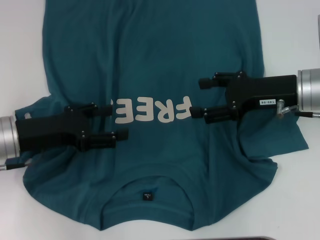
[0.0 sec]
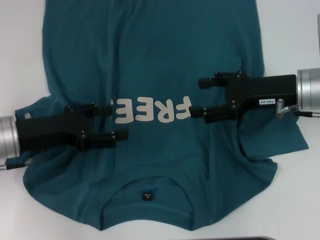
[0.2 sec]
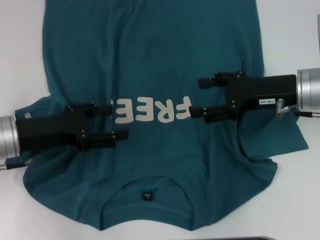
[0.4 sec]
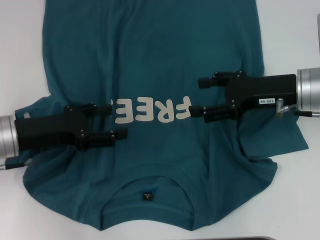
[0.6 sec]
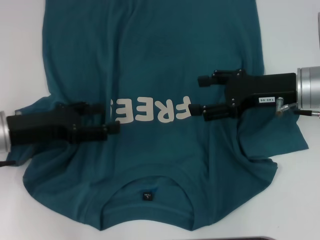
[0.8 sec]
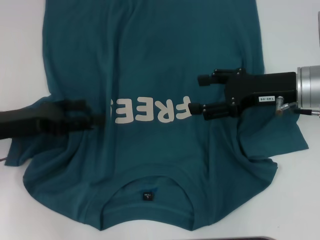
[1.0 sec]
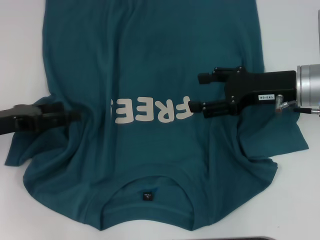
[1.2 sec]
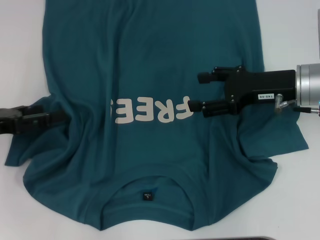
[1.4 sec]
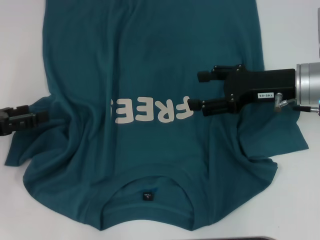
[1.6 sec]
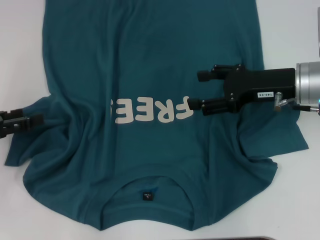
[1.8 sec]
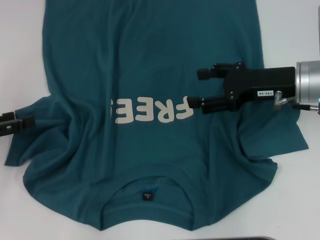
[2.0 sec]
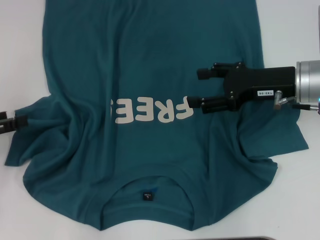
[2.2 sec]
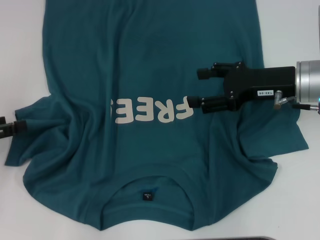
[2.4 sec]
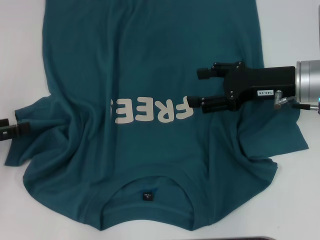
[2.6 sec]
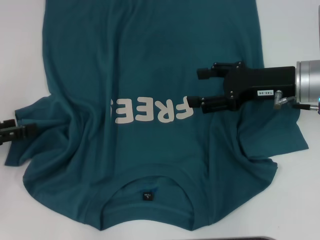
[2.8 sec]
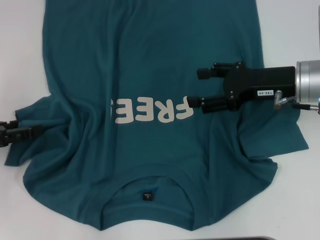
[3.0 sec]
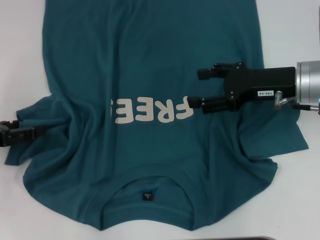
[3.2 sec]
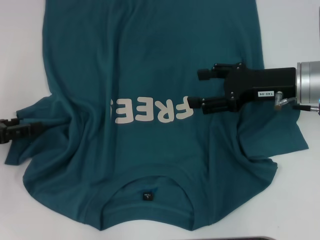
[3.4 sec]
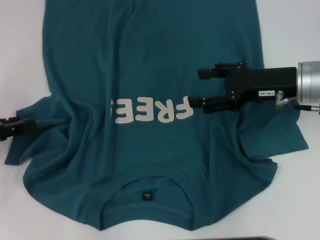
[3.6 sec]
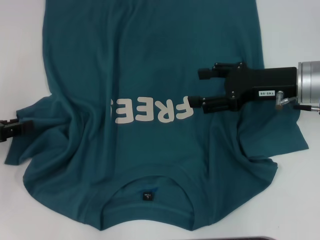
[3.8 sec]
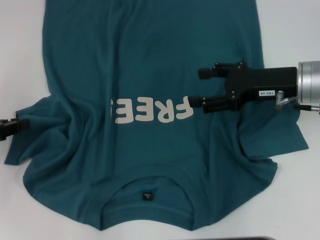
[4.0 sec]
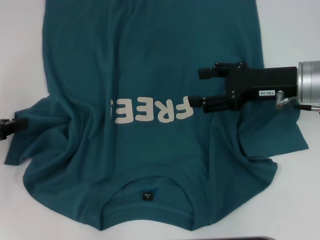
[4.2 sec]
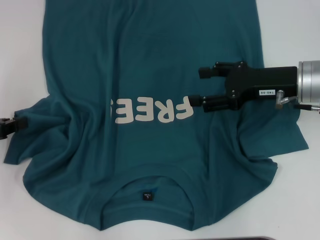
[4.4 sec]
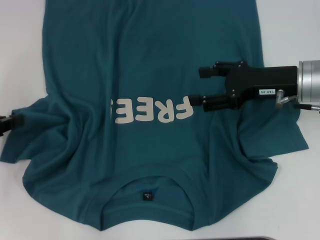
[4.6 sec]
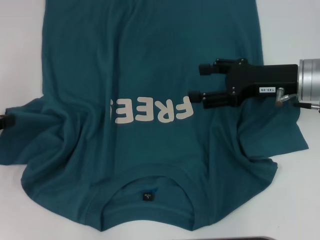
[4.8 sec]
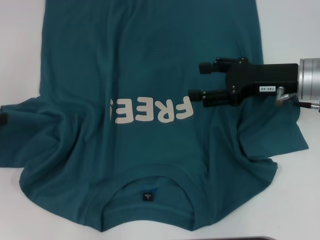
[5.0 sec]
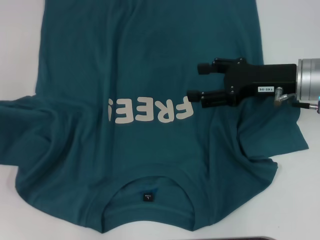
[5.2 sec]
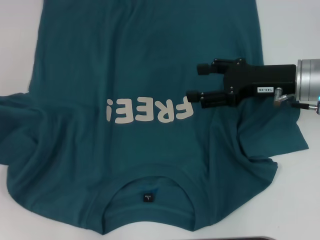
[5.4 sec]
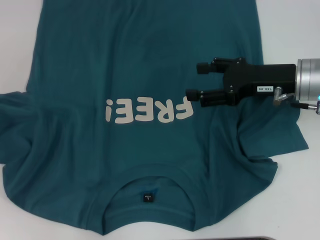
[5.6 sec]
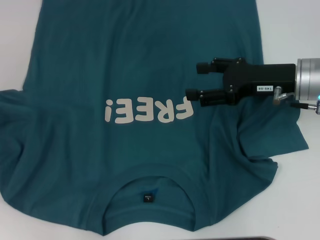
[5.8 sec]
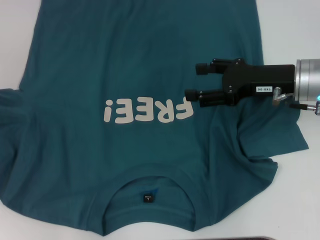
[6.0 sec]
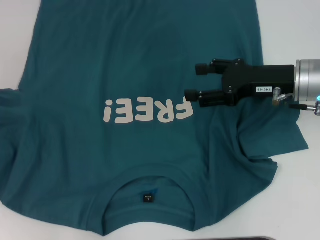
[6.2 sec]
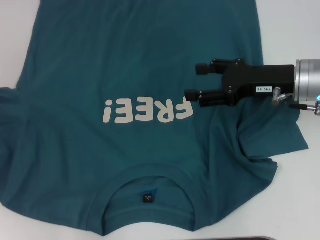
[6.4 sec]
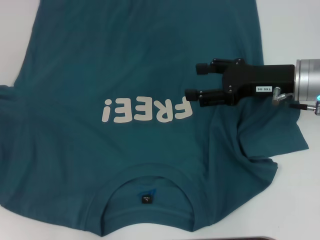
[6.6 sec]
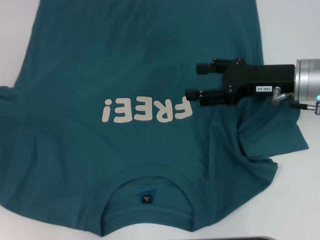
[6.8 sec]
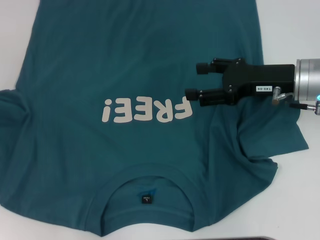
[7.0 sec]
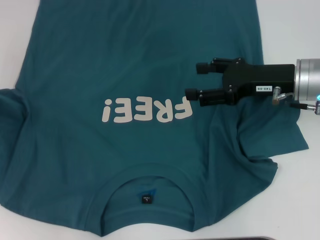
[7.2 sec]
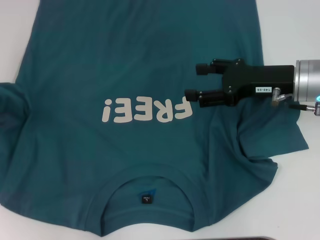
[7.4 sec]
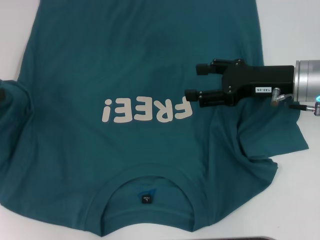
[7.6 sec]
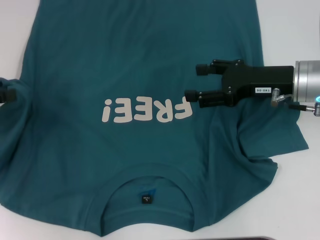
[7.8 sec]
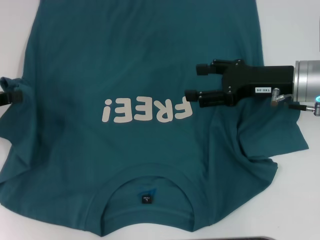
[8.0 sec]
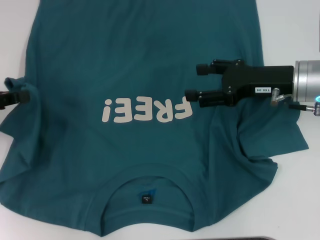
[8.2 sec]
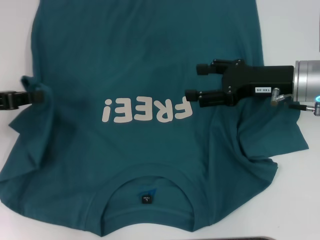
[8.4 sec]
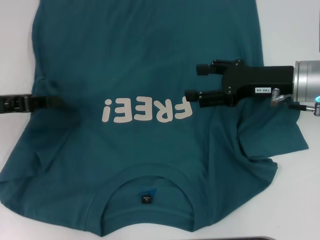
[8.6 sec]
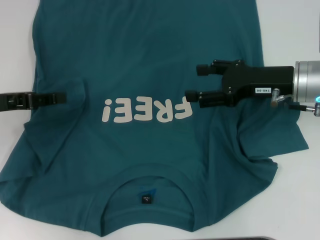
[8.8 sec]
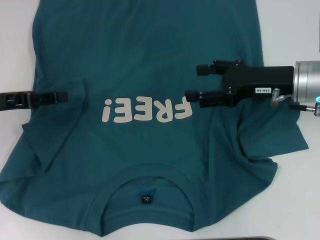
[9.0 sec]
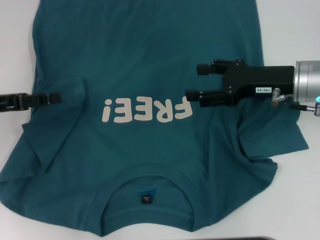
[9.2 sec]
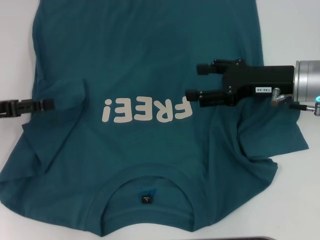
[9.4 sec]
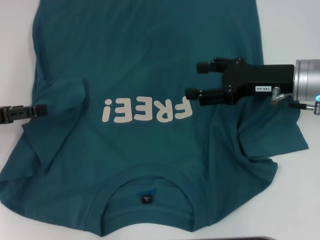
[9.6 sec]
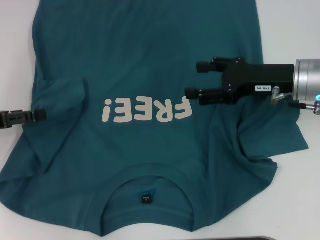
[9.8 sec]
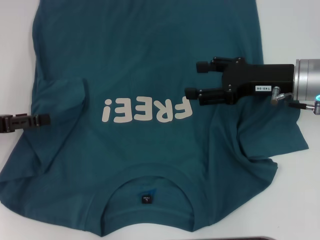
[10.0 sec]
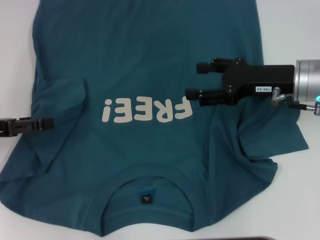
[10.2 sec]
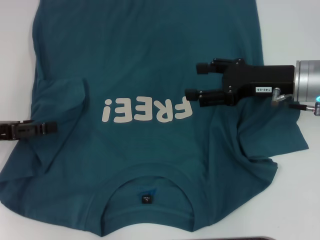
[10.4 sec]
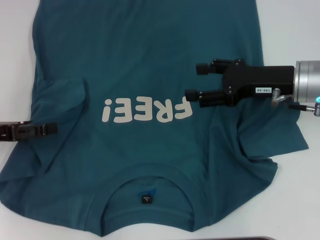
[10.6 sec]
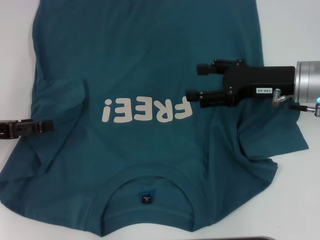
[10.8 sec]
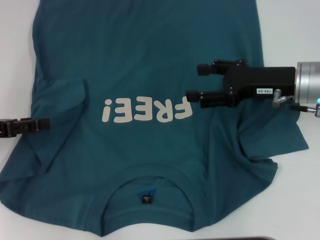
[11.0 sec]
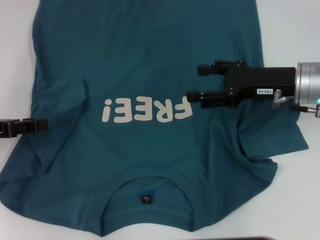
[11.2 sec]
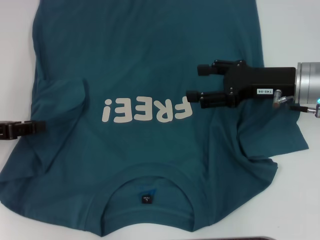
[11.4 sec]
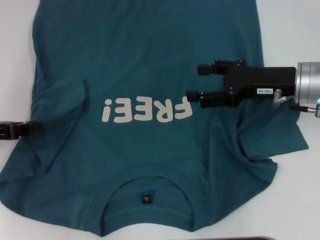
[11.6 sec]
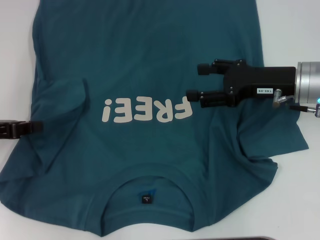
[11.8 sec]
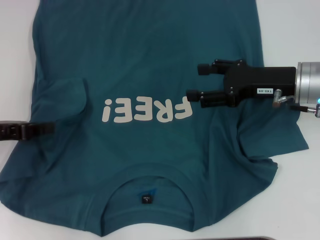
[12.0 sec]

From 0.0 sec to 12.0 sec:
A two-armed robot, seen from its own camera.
Step, from 0.0 sec to 9.0 sec: Fold the bottom left sleeve with your left hand.
From 0.0 sec to 1.6 sec: The left gripper goes about 10 cm to the left.
From 1.6 sec to 3.0 sec: The grippers make only small movements.
From 3.0 sec to 4.4 sec: The left gripper closes its fingers.
From 4.4 sec to 6.0 sec: The left gripper goes some 5 cm to the left.
From 6.0 sec to 7.6 sec: The grippers make only small movements.
From 7.6 sec to 9.0 sec: The left gripper shifts about 5 cm to the right.
From 9.0 sec to 10.4 sec: The left gripper opens up.

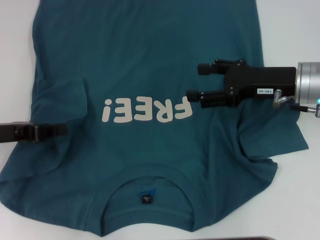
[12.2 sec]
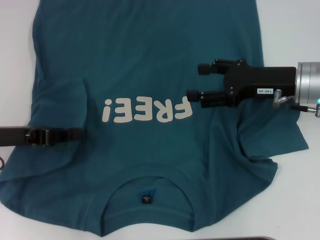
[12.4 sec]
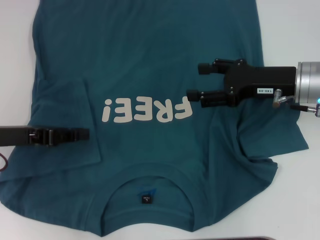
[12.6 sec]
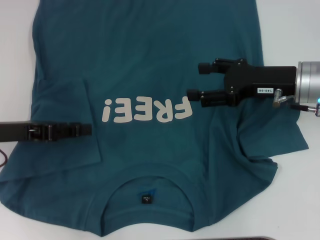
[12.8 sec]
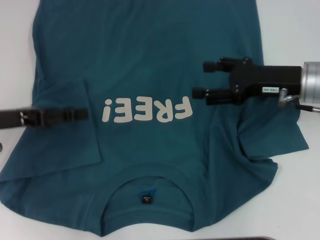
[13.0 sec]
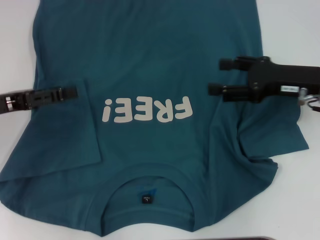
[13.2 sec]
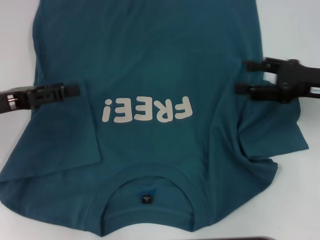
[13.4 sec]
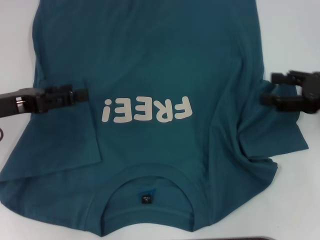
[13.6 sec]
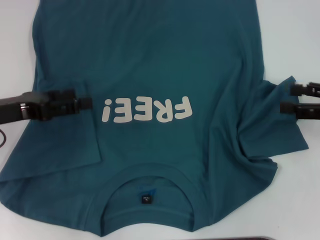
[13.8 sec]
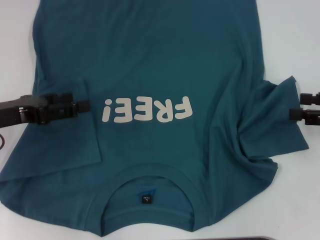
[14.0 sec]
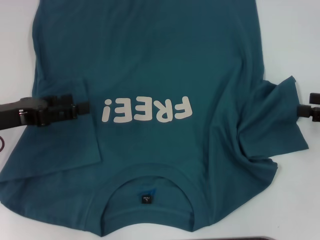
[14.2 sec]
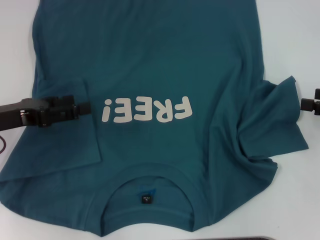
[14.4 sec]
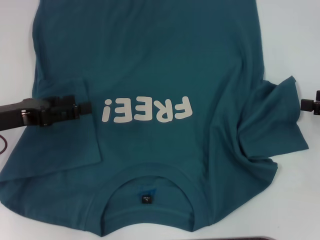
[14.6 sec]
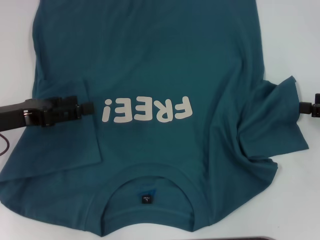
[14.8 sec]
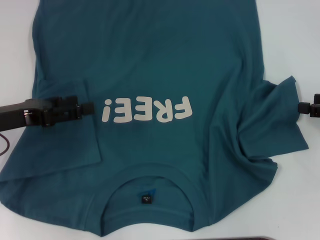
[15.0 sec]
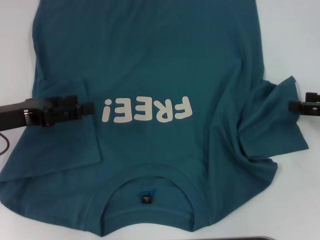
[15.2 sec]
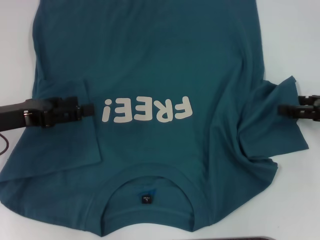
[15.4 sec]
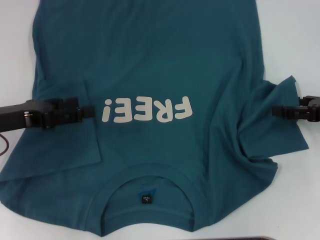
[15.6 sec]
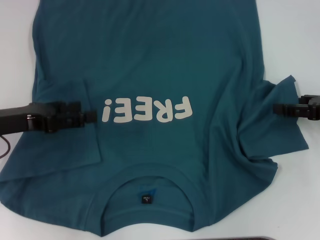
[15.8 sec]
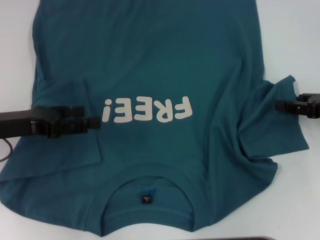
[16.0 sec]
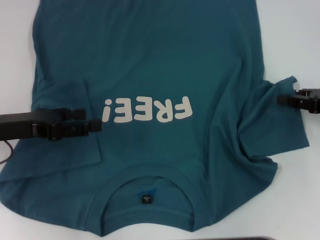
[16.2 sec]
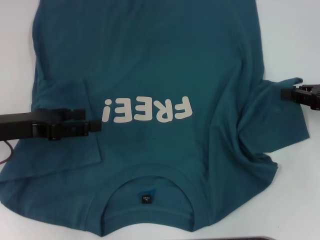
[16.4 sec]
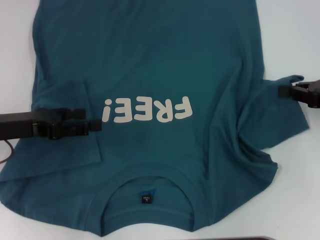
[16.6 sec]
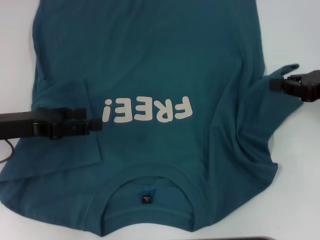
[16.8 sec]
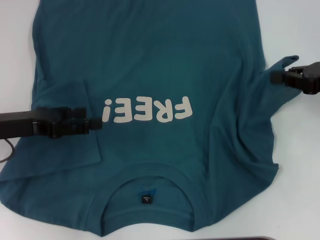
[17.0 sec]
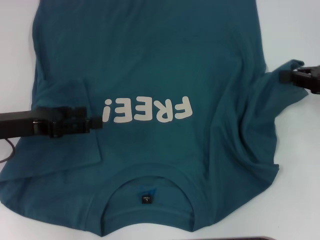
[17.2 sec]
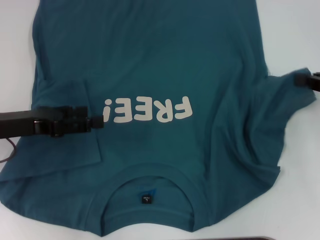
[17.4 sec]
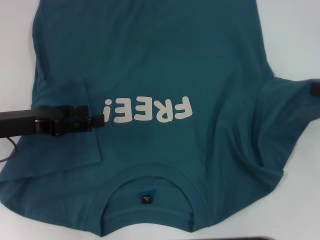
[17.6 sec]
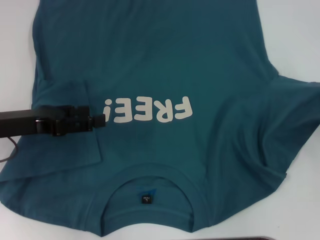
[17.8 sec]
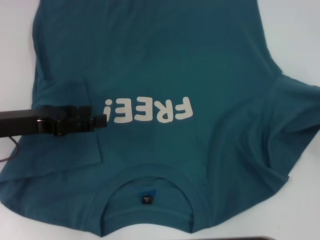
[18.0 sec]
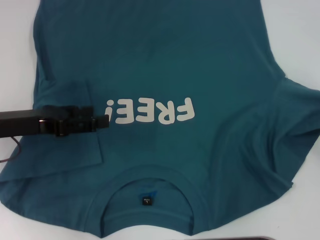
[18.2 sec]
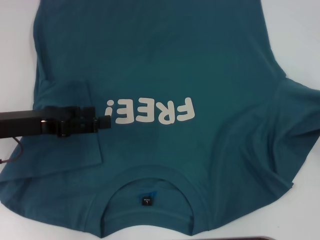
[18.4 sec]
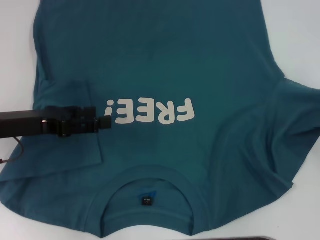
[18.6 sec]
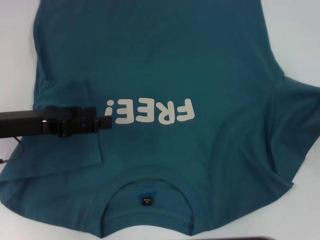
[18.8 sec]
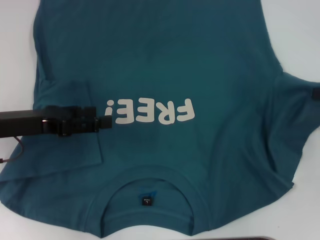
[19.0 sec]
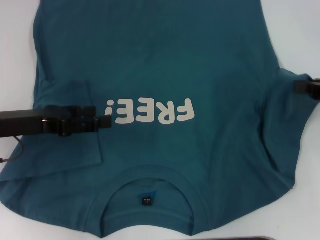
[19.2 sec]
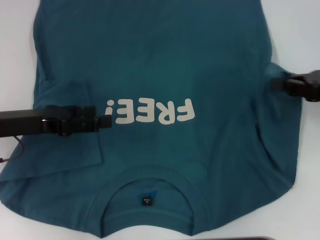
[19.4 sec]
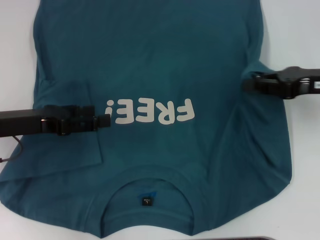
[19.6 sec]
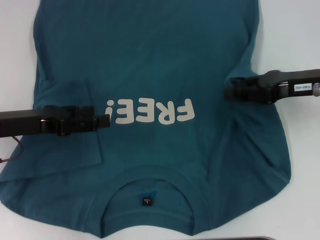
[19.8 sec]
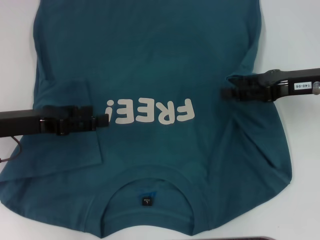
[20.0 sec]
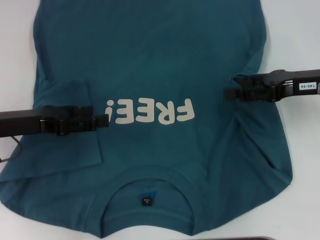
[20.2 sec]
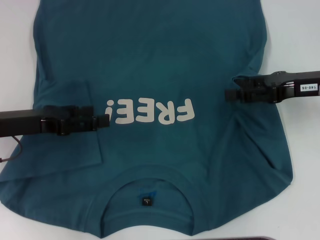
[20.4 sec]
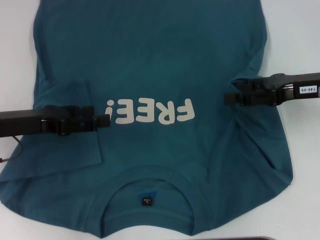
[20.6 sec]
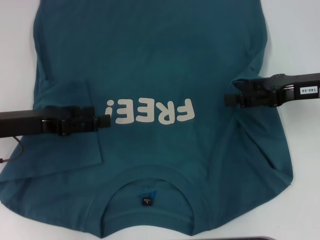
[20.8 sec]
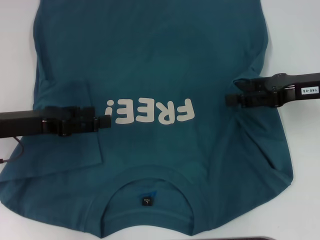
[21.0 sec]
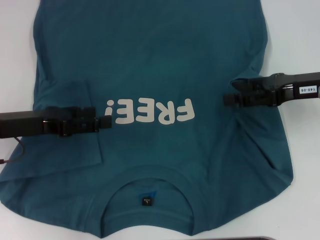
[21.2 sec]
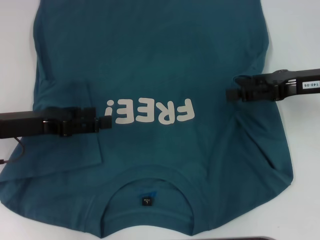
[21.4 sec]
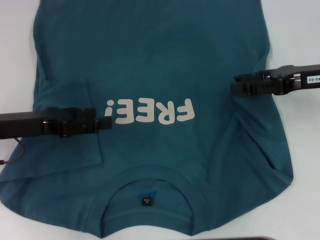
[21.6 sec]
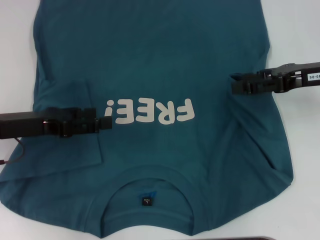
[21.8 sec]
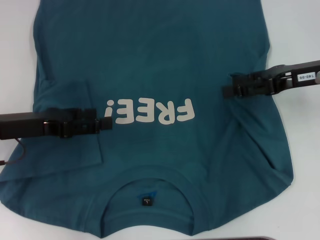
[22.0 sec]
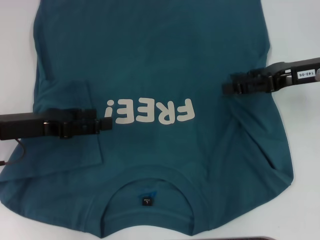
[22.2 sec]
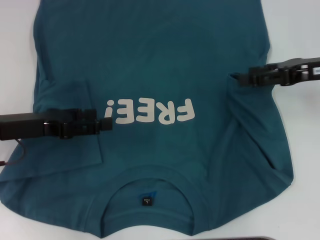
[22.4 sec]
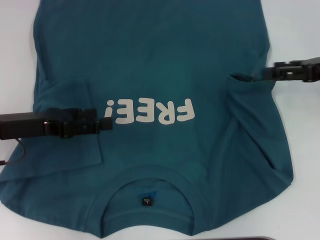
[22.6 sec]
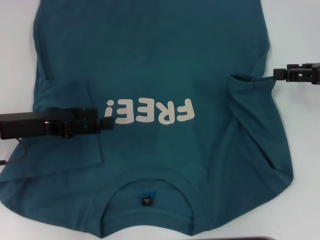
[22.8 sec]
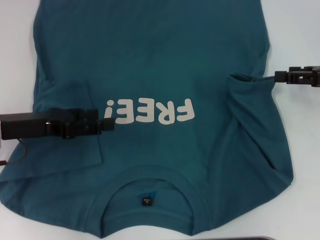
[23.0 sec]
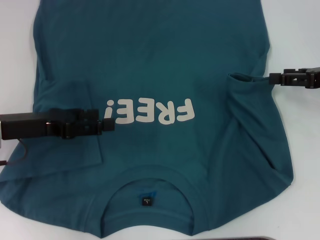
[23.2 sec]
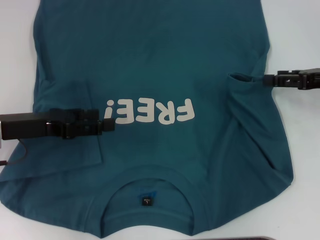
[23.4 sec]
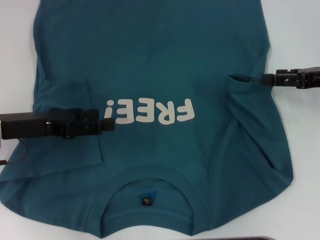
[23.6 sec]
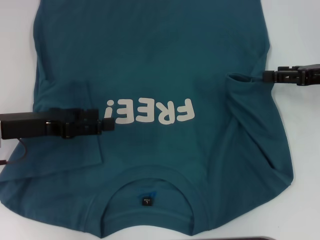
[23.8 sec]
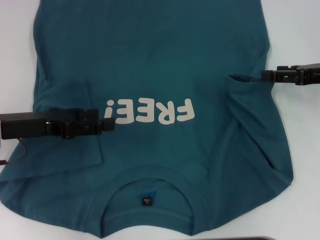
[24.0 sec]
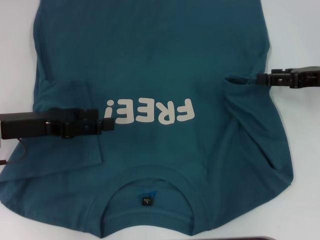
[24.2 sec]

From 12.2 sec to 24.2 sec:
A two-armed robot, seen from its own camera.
Step, from 12.2 sec to 22.2 sec: Fold the bottom right sleeve to the right.
From 12.2 sec to 13.8 sec: The right gripper travels to the right and backward by approximately 15 cm, while the left gripper opens its fingers.
From 13.8 sec to 15.2 sec: The grippers make only small movements.
From 15.2 sec to 16.6 sec: The right gripper closes its fingers.
From 16.6 sec to 18.2 sec: The right gripper goes some 10 cm to the right and backward.
From 18.2 sec to 19.8 sec: The right gripper heads to the left and forward, covering about 15 cm.
From 19.8 sec to 21.2 sec: The right gripper opens up.
From 21.2 sec to 22.6 sec: The right gripper moves about 5 cm.
From 22.6 sec to 24.2 sec: There are only small adjustments of the grippers.
